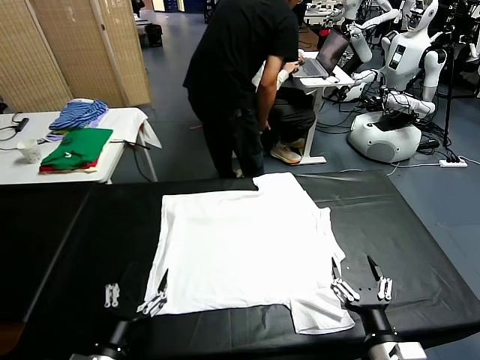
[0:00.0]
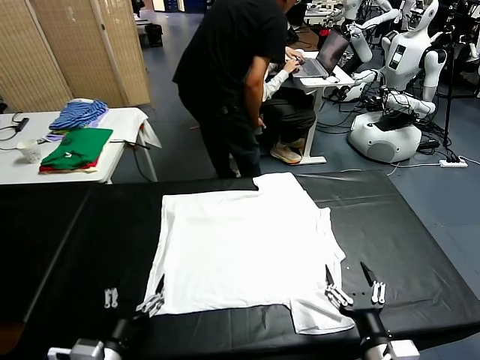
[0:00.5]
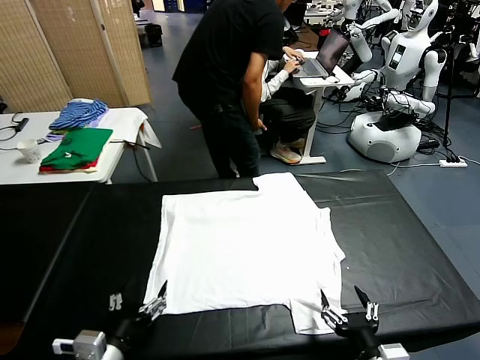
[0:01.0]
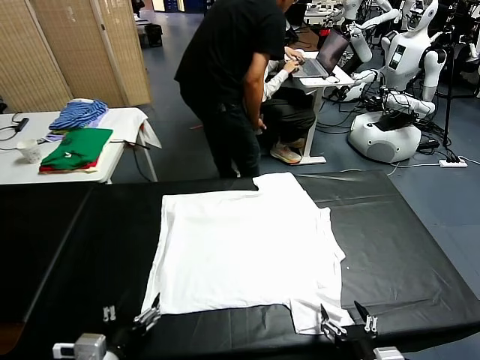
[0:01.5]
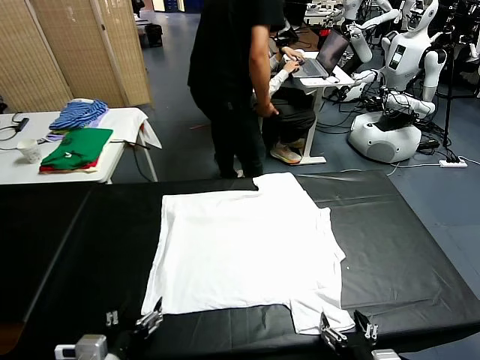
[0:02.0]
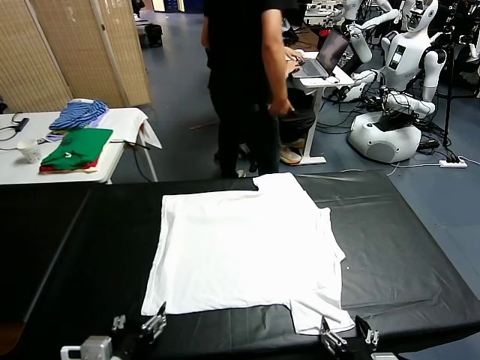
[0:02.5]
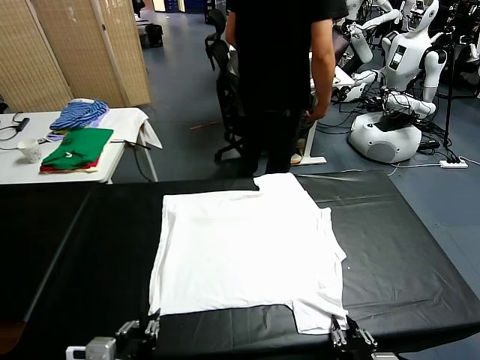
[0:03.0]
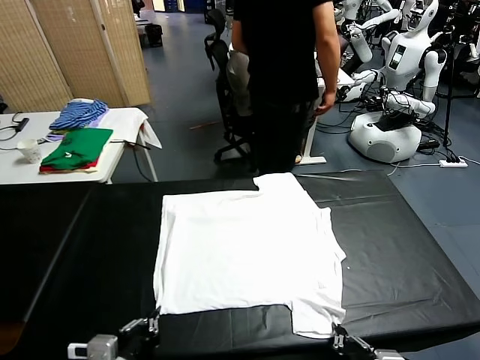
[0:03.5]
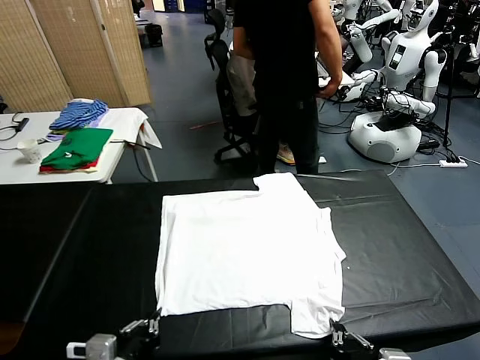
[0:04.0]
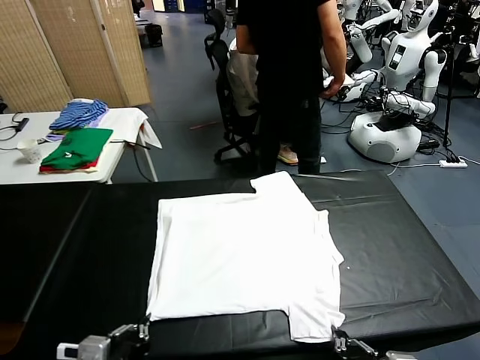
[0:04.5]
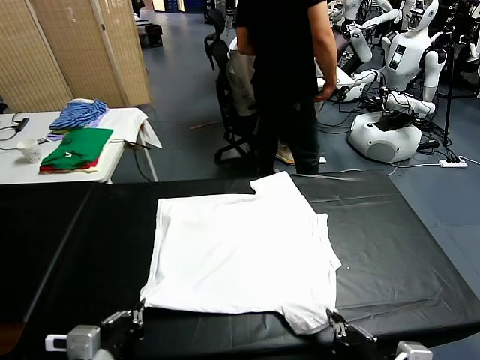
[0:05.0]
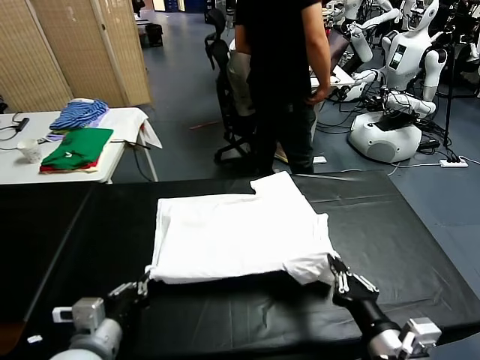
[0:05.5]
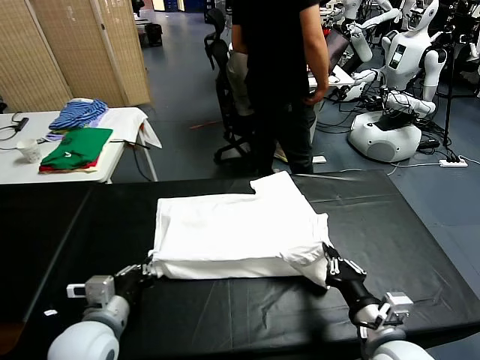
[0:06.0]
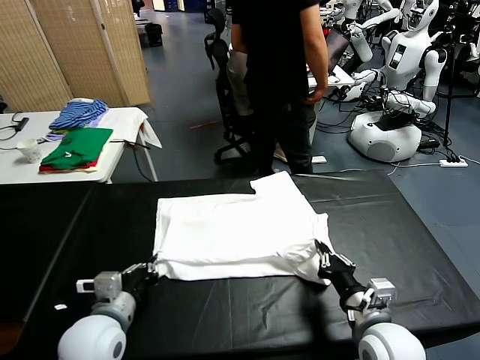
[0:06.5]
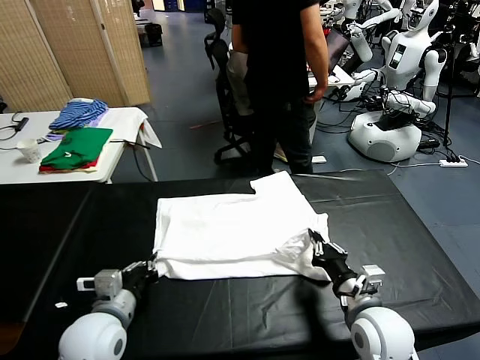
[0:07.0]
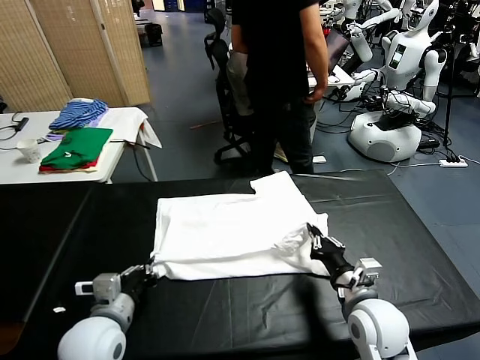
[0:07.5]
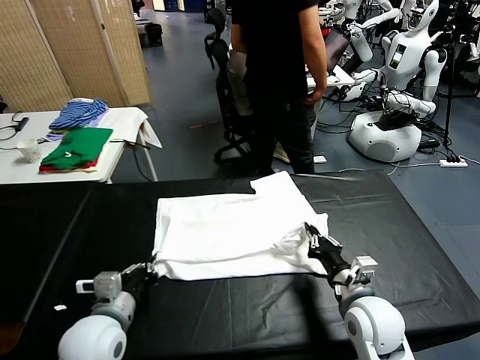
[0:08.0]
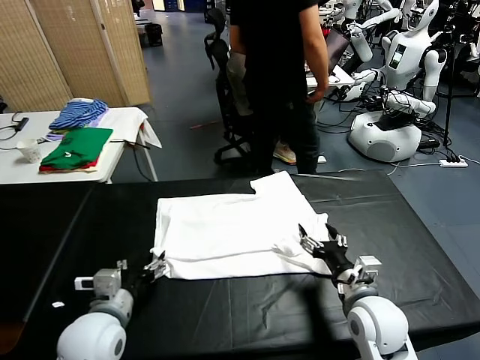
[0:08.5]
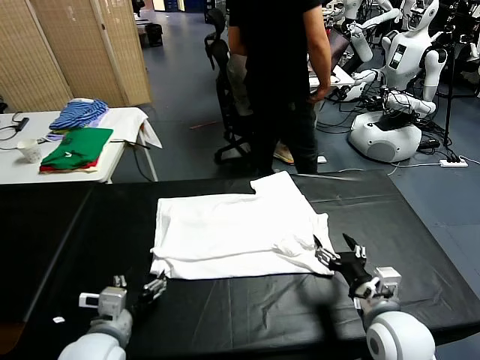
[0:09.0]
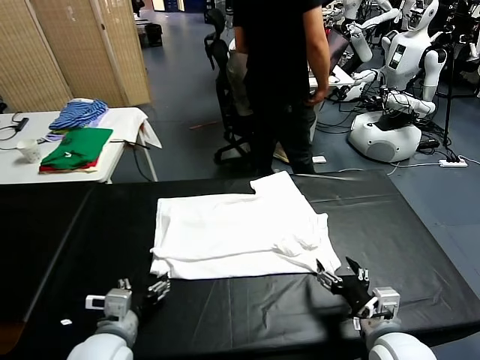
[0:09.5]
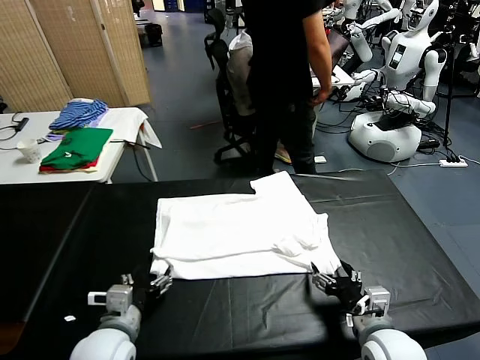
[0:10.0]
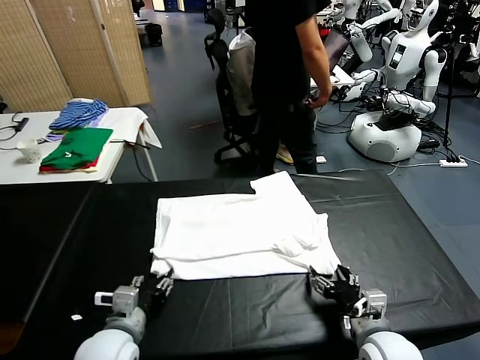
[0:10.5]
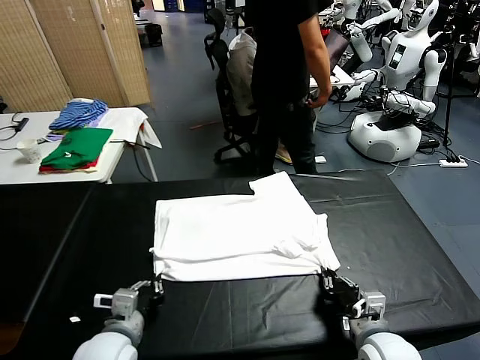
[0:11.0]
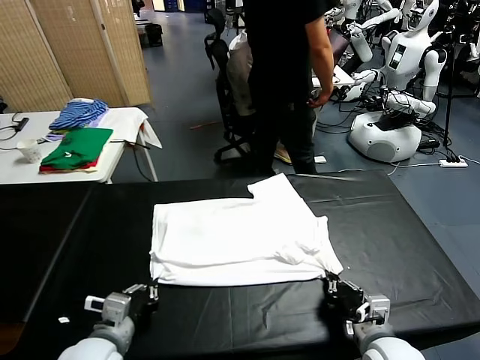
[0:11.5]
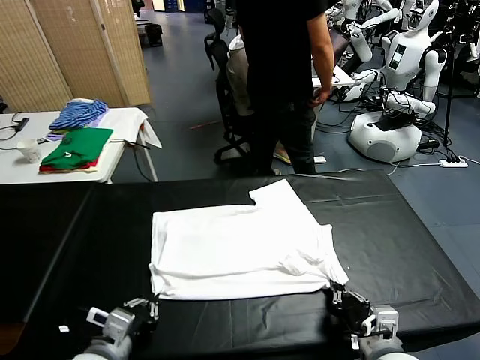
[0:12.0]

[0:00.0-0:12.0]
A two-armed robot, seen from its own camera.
Task of the whole recording: fold and organize the clothes.
Step, 0:00.0 to 0:03.5: use both grippers simultaneously to clamp the lower edge of the clothing fabric.
Step, 0:04.0 to 0:08.0: use both grippers to drag the lower edge of the fabric forward and fold it over the upper edge.
0:02.0 to 0:04.0: The left gripper closes its fingers. The right gripper shifts some 5 cm upward, and closes its fingers.
0:04.0 to 0:06.0: Both grippers travel together forward, approximately 10 cm.
0:06.0 to 0:08.0: The right gripper travels forward by approximately 5 cm, and opens up.
0:08.0 to 0:10.0: The right gripper is displaced backward by some 5 cm. The left gripper opens.
0:10.0 to 0:12.0: Both grippers travel together backward, roughly 5 cm. The left gripper closes its fingers, while the right gripper closes up.

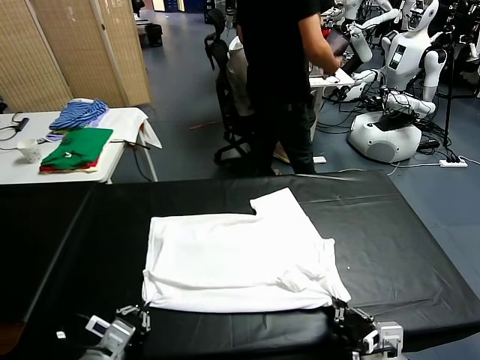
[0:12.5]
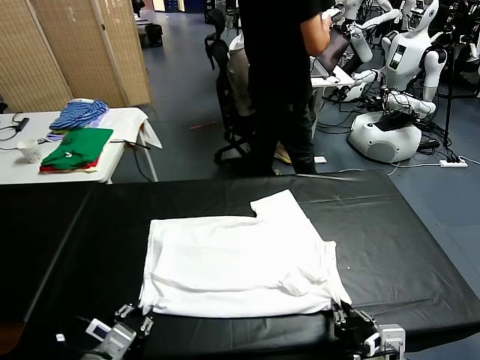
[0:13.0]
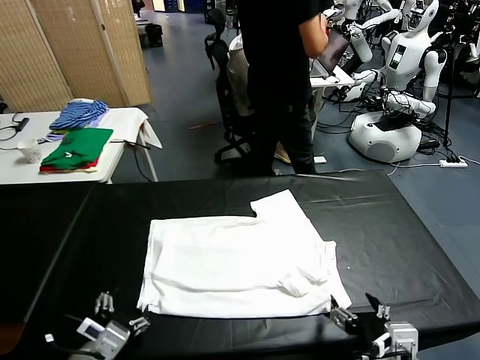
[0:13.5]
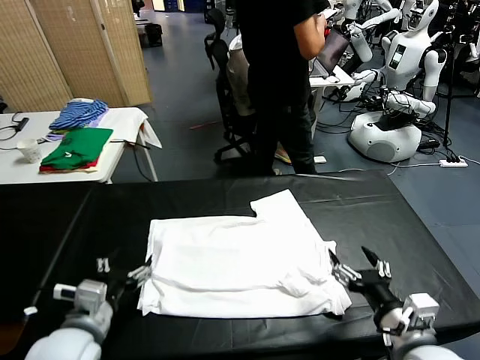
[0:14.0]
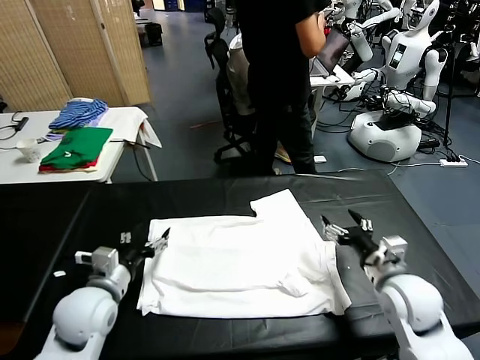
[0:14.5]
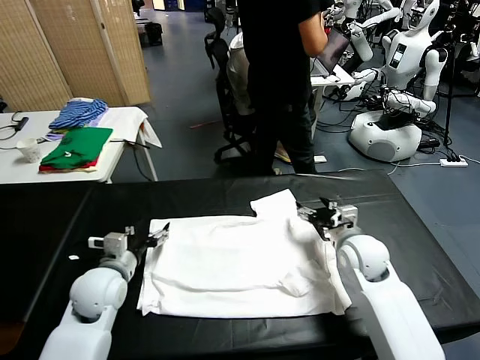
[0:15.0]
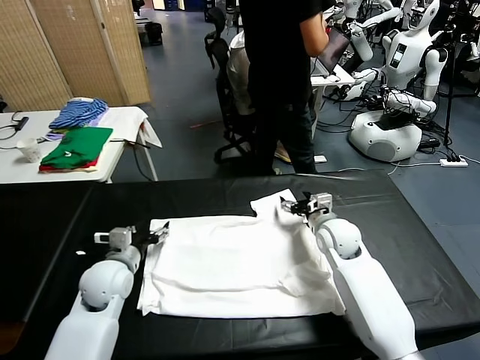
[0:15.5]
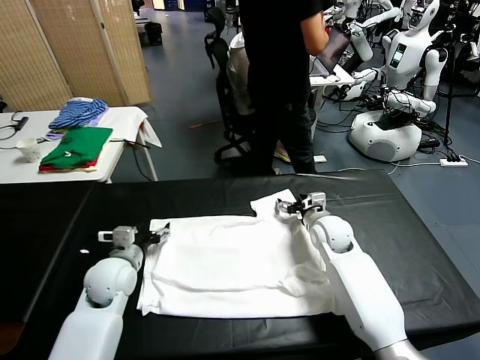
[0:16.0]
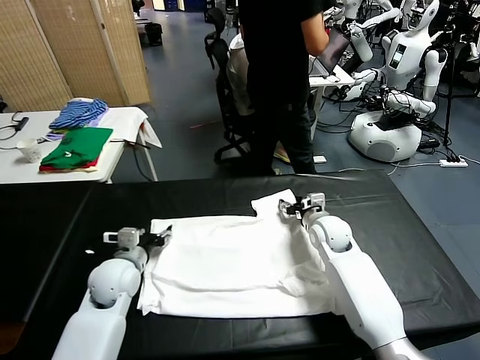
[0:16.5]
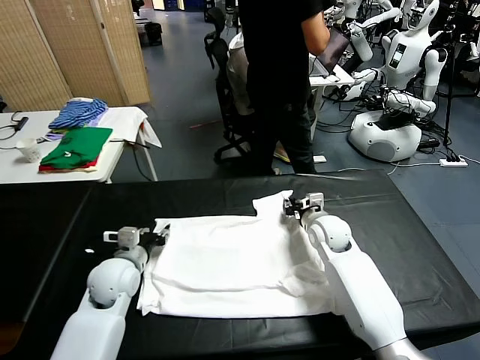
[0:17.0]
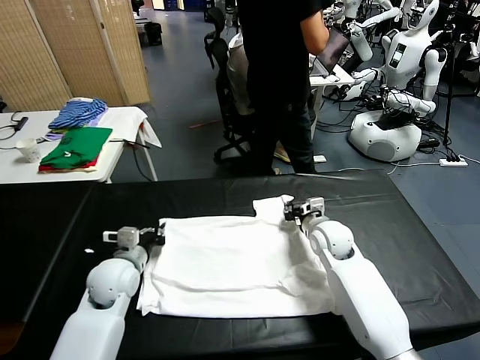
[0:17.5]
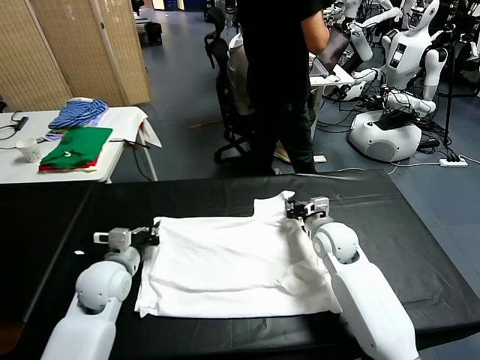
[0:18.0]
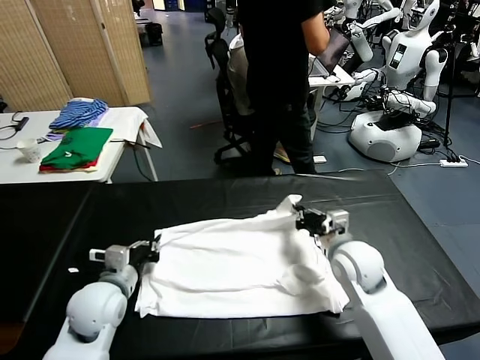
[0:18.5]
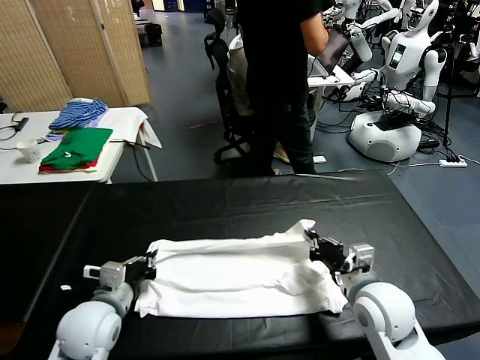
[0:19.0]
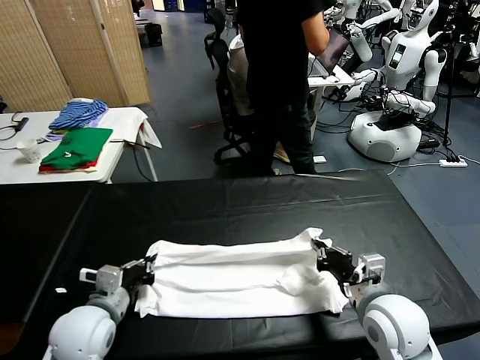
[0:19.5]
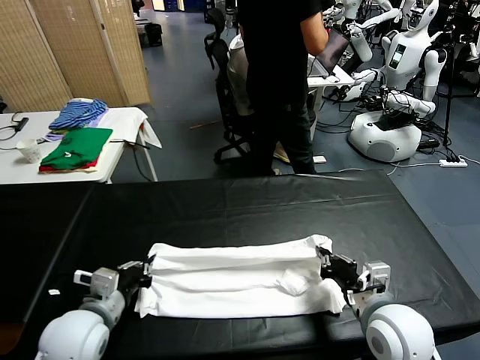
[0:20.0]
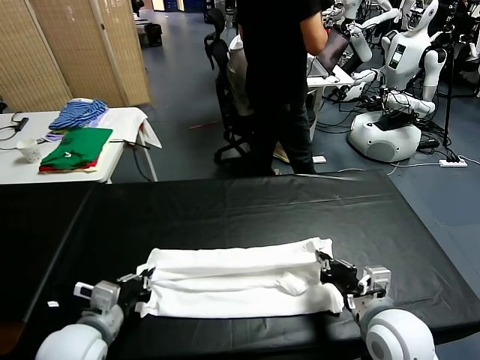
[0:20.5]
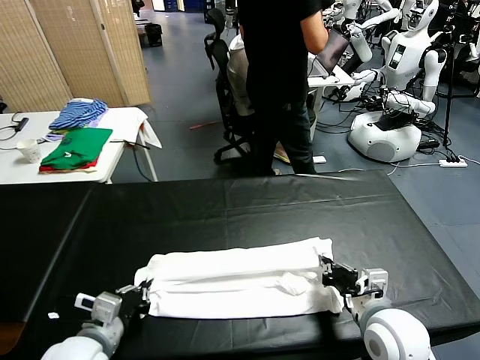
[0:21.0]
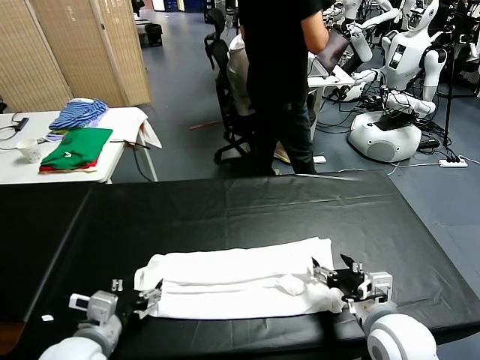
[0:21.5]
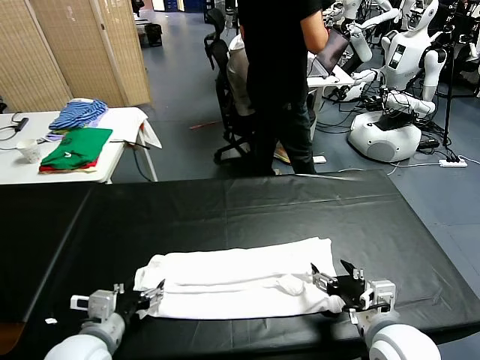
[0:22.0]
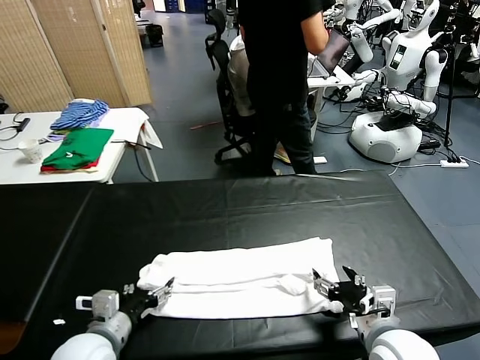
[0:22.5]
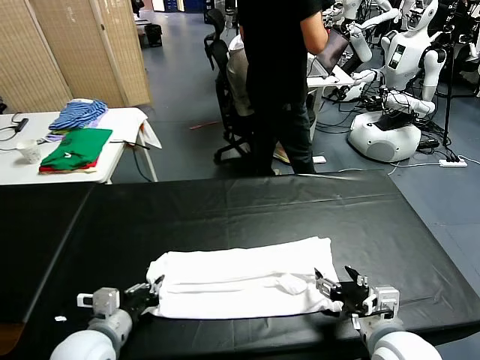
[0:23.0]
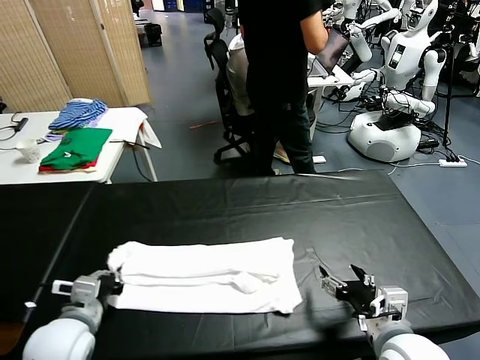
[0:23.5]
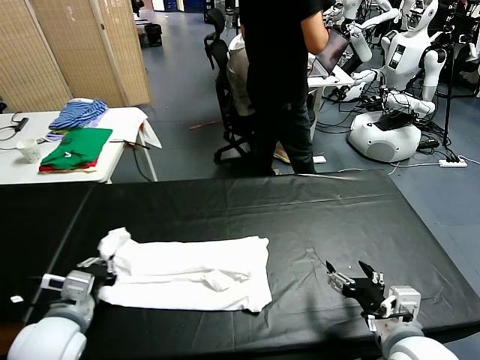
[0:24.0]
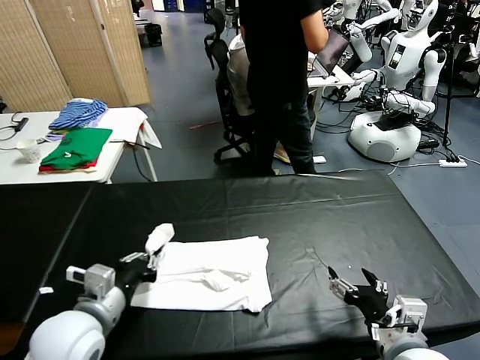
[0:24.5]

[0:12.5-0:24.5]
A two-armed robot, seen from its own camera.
Task of the whole recording: fold and organize the clothes.
Step, 0:13.5 to 0:17.5: use both grippers simultaneously to clamp the upper edge of the clothing fabric.
Step, 0:18.0 to 0:21.0: use both grippers to drag the upper edge of the fabric backward and fold it over the lower edge.
Step, 0:21.5 to 0:22.5: use the left gripper to clamp the left edge of the fabric.
0:12.5 to 0:14.5: The right gripper shifts some 25 cm forward, and opens up. Meanwhile the left gripper shifts about 15 cm forward, and opens its fingers.
0:14.5 to 0:16.5: The right gripper moves forward and to the left, some 10 cm, and closes up. Meanwhile the left gripper shifts roughly 5 cm forward.
0:16.5 to 0:18.5: The right gripper travels backward by approximately 15 cm, and closes, while the left gripper is displaced backward by roughly 5 cm, and closes.
0:18.5 to 0:20.5: Both grippers travel together backward, roughly 10 cm.
0:20.5 to 0:22.5: The left gripper opens. Meanwhile the right gripper opens its fingers.
0:22.5 to 0:24.5: The right gripper changes place by some 5 cm. The left gripper shifts about 10 cm upward, and closes.

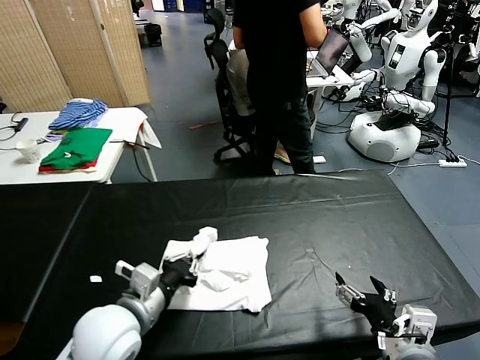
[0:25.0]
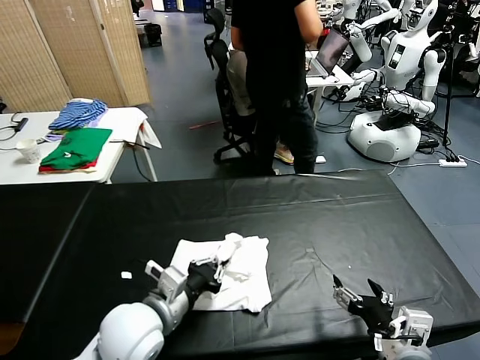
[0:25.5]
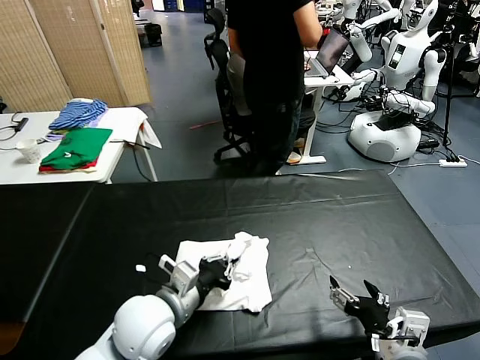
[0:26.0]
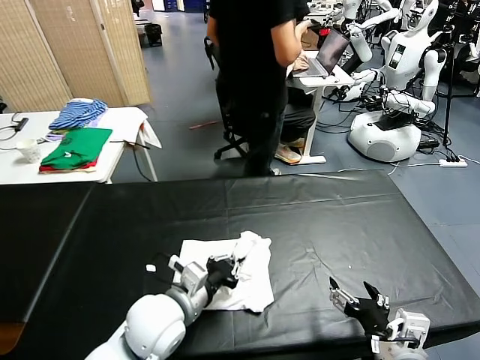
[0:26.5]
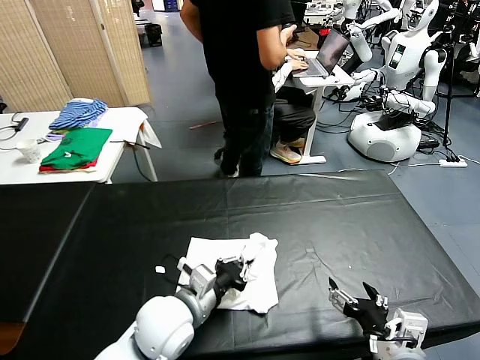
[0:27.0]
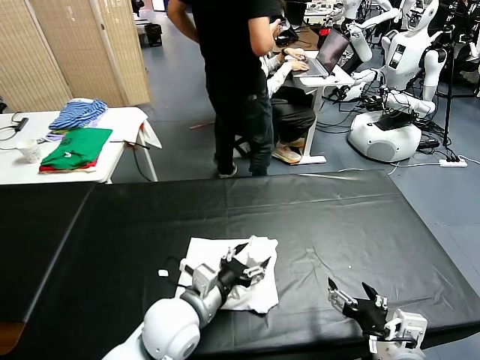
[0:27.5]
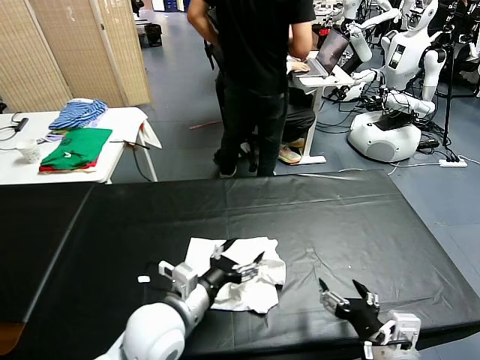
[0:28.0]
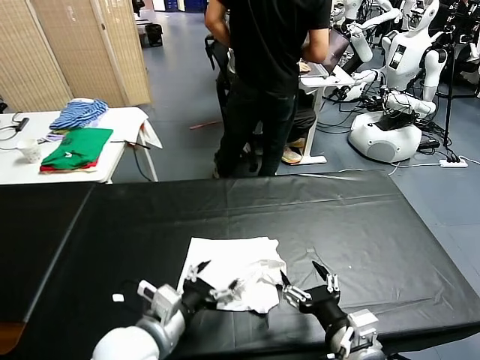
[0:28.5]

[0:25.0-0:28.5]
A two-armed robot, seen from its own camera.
Task of the whole recording: fold and organize the clothes.
Step, 0:25.0 to 0:27.5: use the left gripper to drag the left edge of the fabric to the left and folds it over the right edge.
0:25.0 to 0:27.0: The left gripper travels to the right by approximately 5 cm.
0:27.0 to 0:28.5: The left gripper goes approximately 5 cm backward, and opens up.
